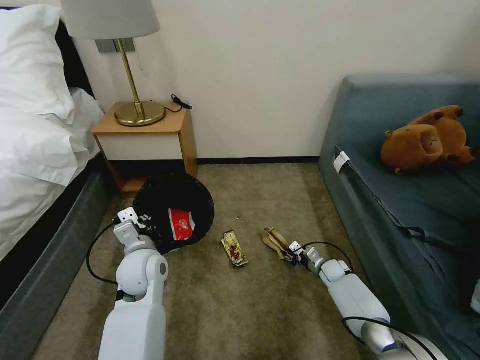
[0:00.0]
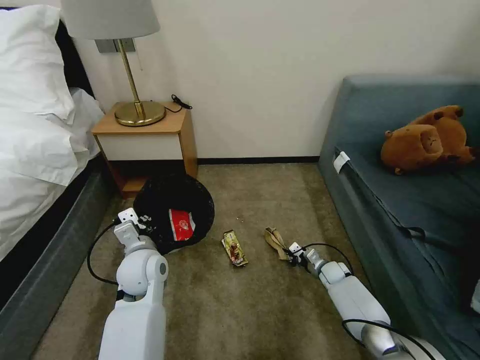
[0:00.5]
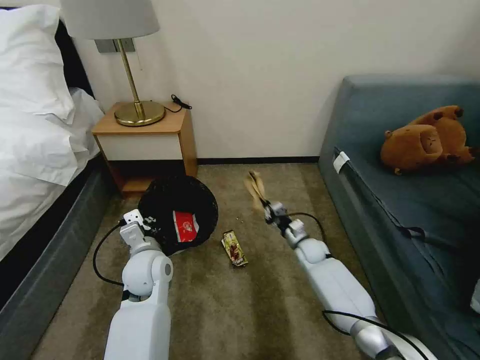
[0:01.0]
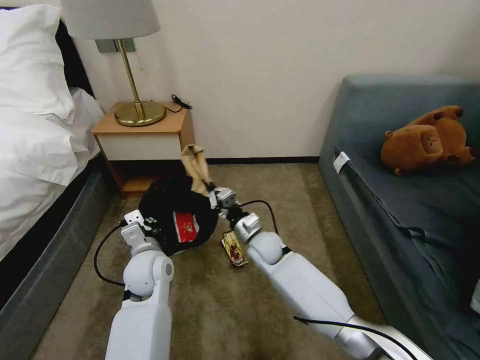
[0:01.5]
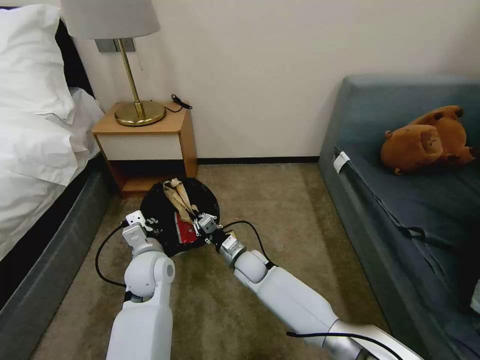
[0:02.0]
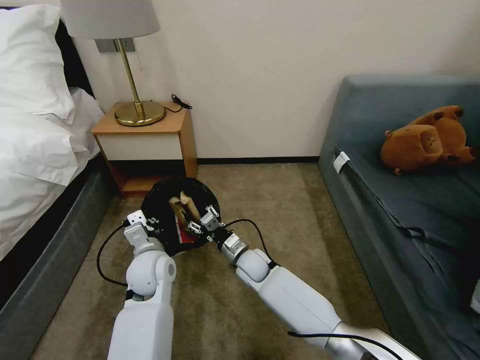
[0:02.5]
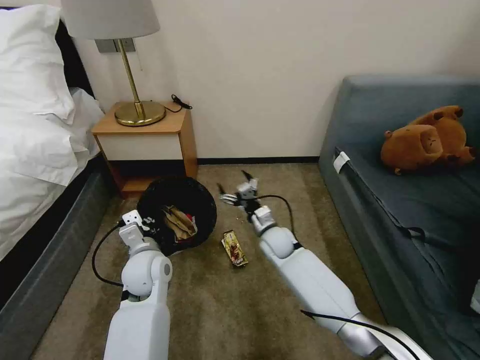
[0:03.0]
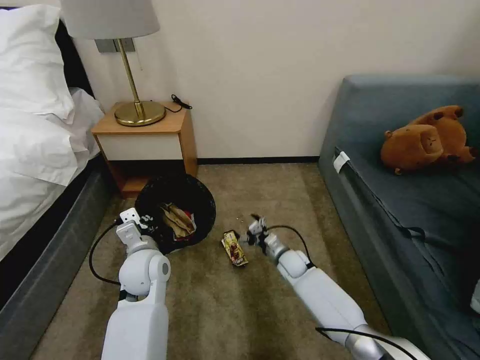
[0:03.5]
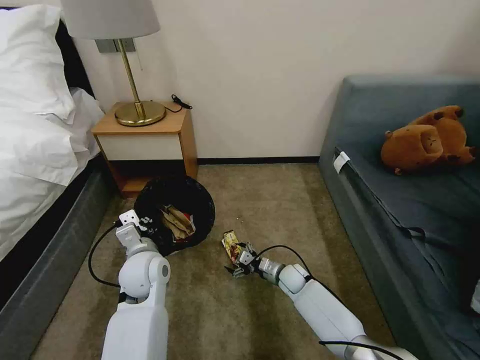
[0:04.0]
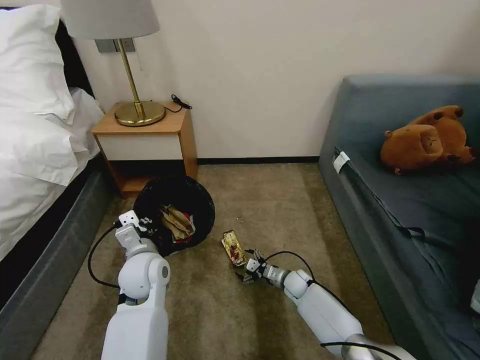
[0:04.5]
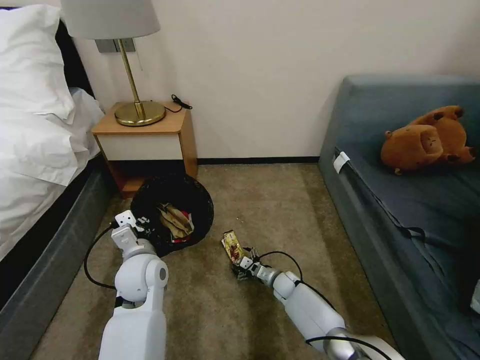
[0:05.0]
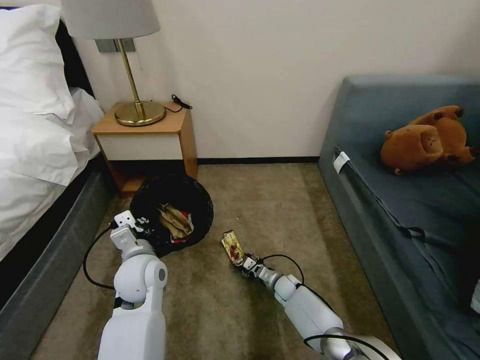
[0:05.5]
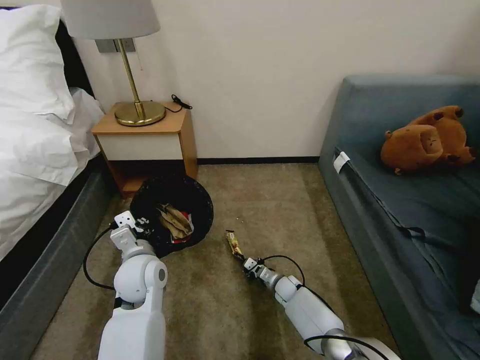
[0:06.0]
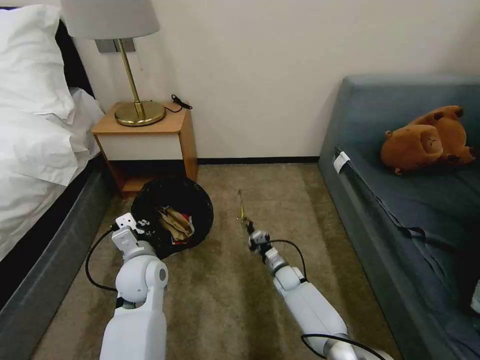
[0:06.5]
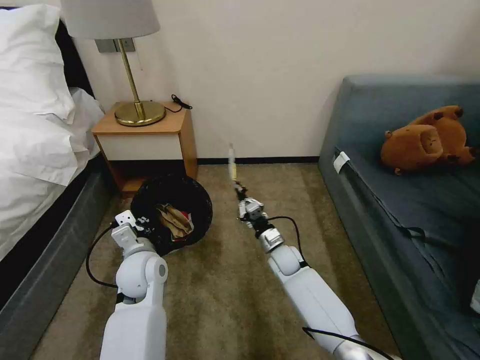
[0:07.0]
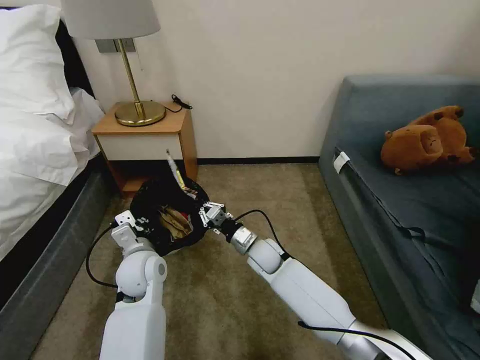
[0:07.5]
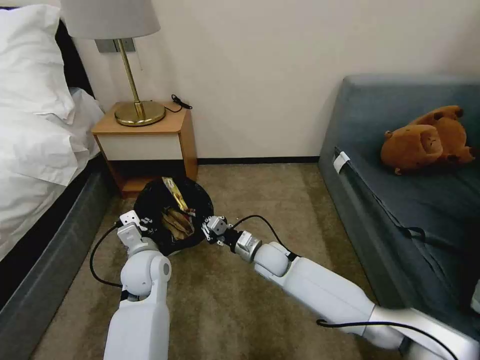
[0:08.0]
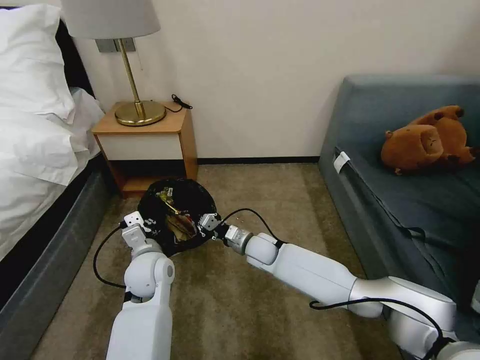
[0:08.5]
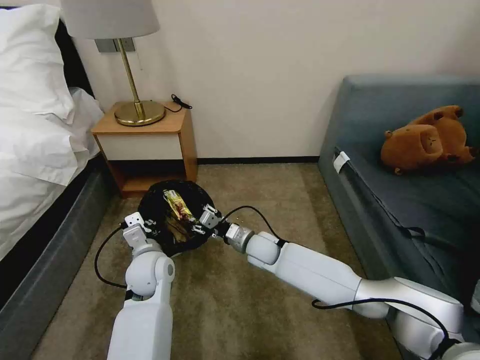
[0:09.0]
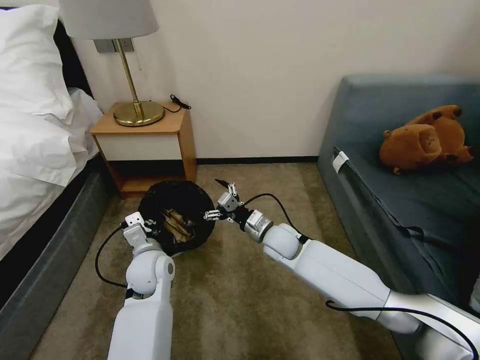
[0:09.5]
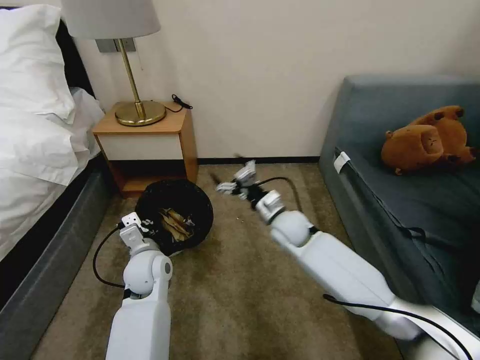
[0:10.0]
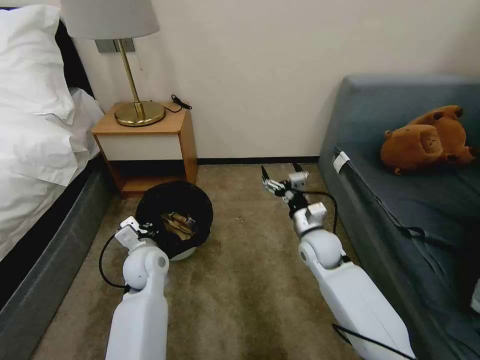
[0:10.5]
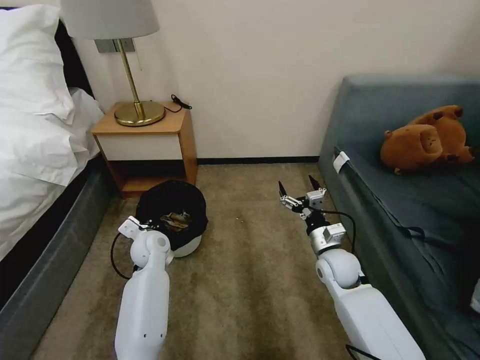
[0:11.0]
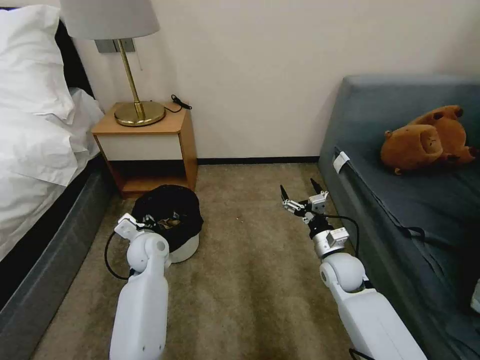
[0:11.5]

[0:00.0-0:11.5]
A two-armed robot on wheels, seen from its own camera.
Task of the whole recording: Pick up the trash bin, then pick up the garbage on the floor and place it into the trash bin.
0:00.0 to 0:02.0: The right gripper shifts approximately 30 cm to the left.
0:02.0 to 0:04.0: The right gripper travels to the right and downward by about 15 cm, and opens its fingers.
0:04.0 to 0:06.0: The right gripper shifts some 5 cm downward, and closes.
0:06.0 to 0:07.5: The right gripper is displaced upward and to the left by approximately 20 cm.
0:07.5 to 0:09.5: The right gripper is displaced upward by some 5 cm, and opens up.
0:09.5 to 0:11.5: The right gripper moves to the right and backward, about 15 cm. The left gripper travels forward by some 5 cm, and opens its fingers.

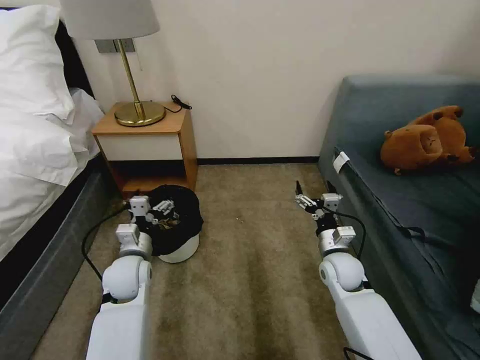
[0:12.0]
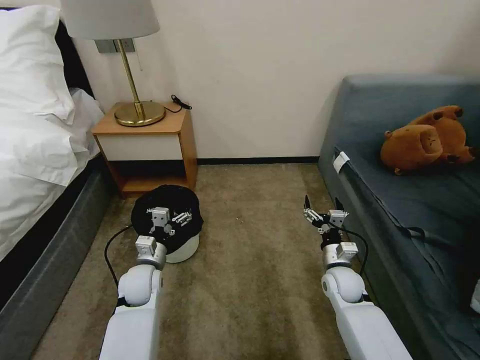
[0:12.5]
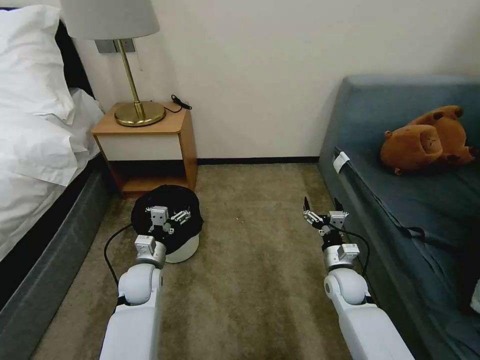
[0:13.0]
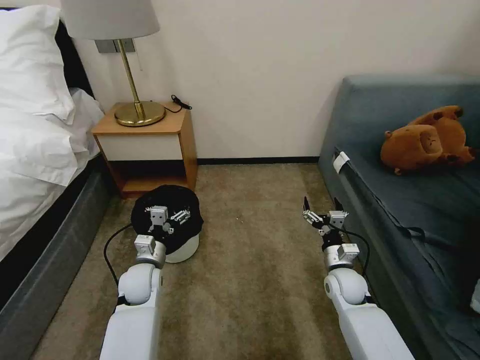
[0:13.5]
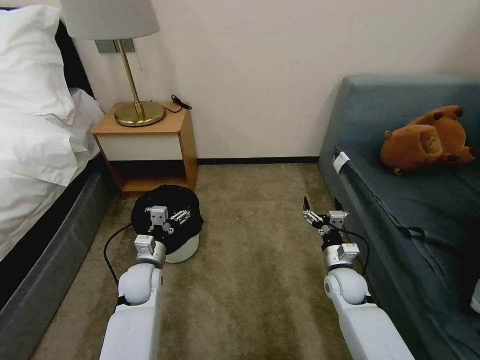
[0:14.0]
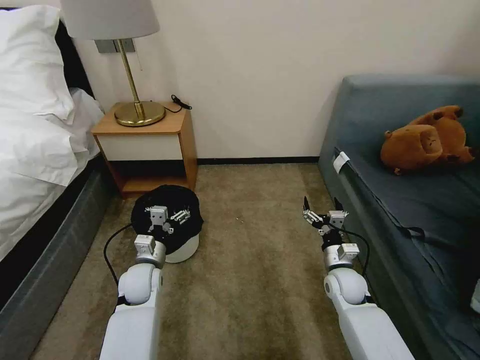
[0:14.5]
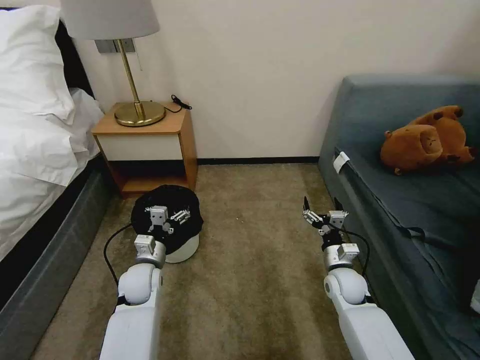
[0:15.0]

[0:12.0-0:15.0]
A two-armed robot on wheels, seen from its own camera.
Task of the whole recording: Pick up the trash bin, then pick up the garbage on the floor and place it into the trash bin.
0:12.0 to 0:13.5: The grippers both shift downward by about 5 cm.
0:13.5 to 0:15.0: The two grippers keep their place.

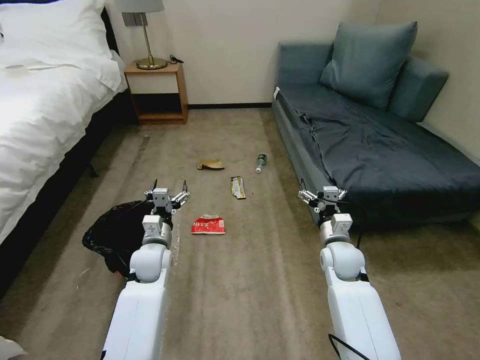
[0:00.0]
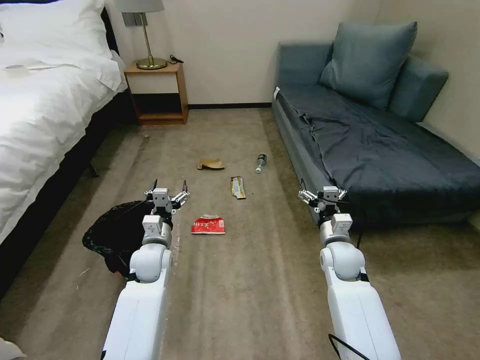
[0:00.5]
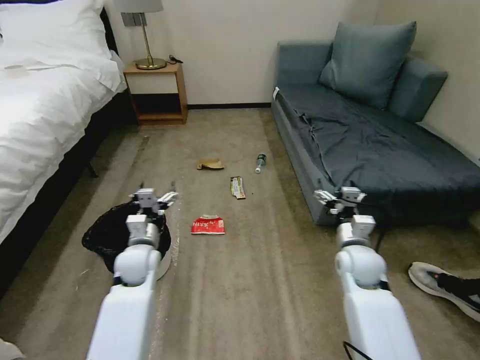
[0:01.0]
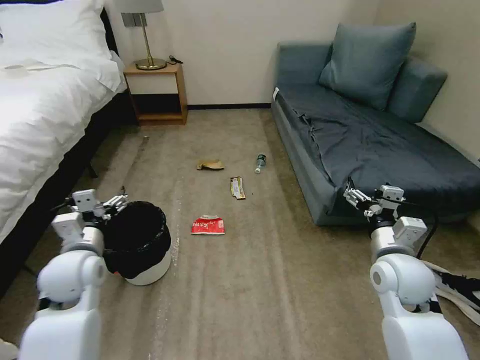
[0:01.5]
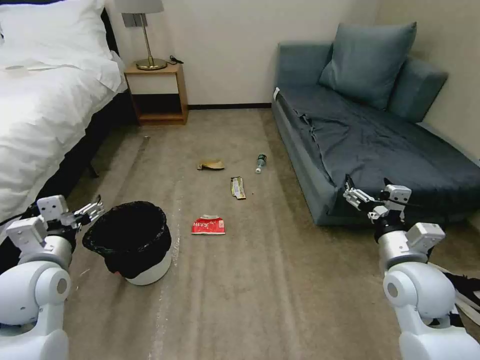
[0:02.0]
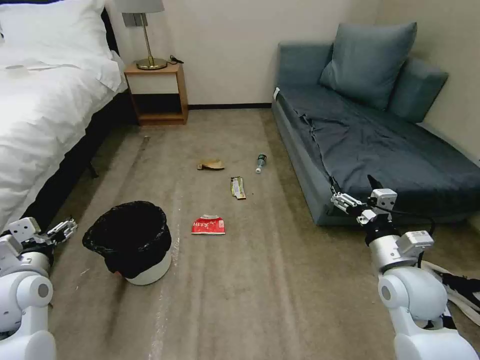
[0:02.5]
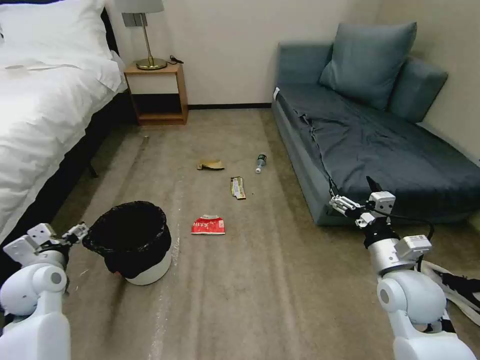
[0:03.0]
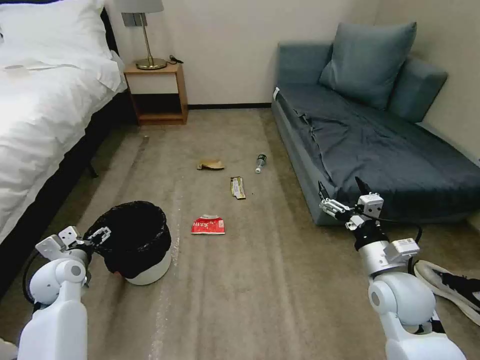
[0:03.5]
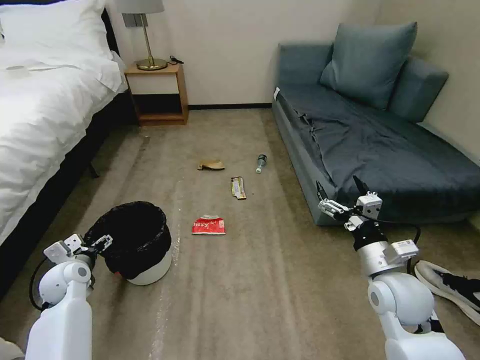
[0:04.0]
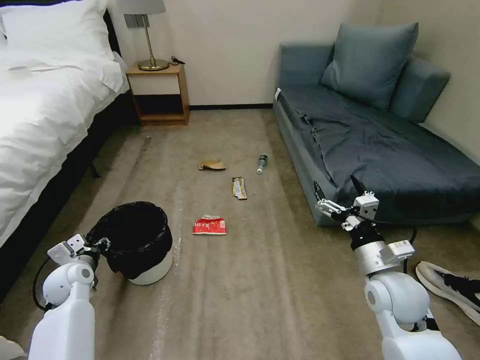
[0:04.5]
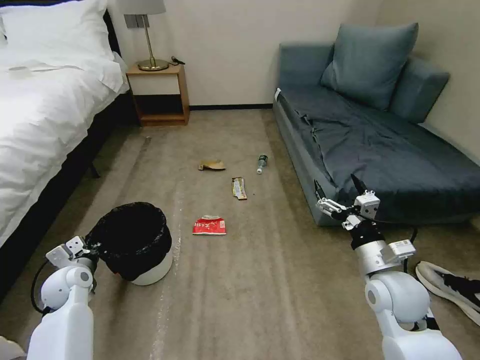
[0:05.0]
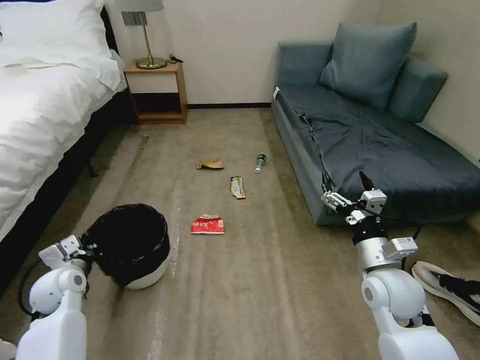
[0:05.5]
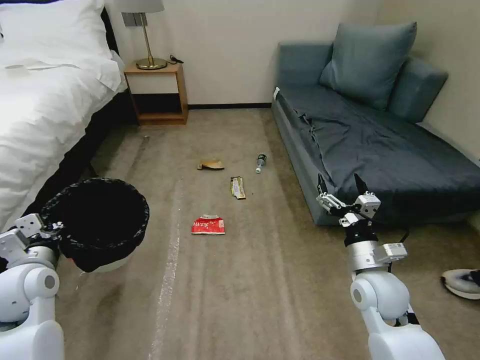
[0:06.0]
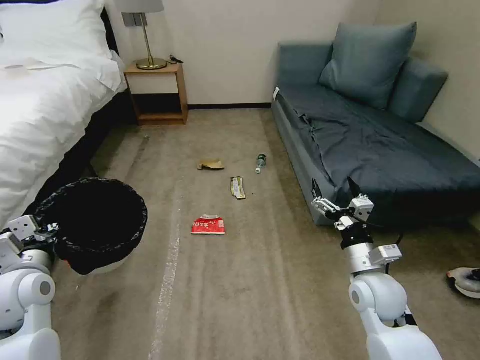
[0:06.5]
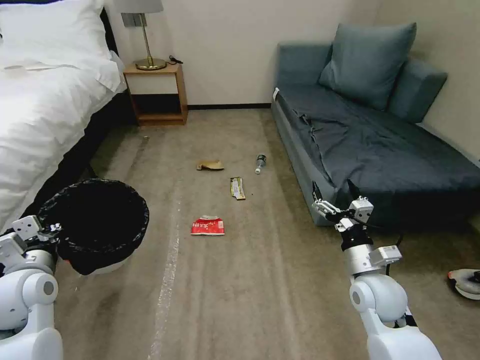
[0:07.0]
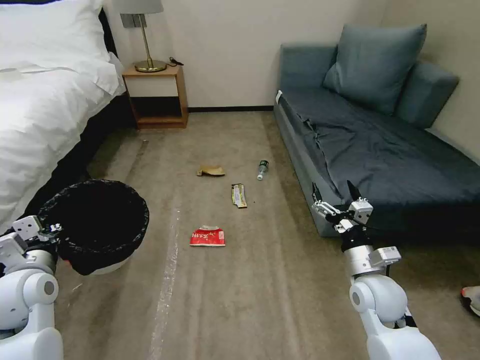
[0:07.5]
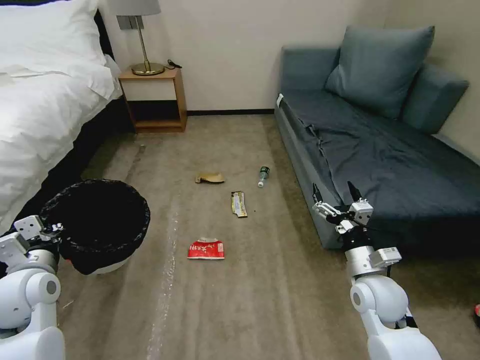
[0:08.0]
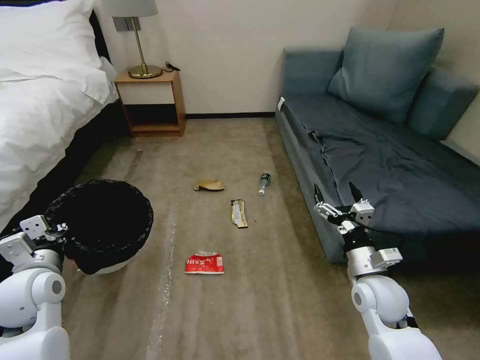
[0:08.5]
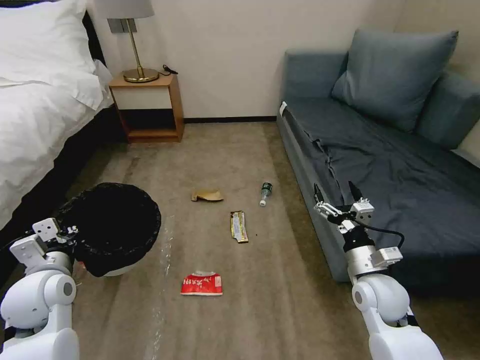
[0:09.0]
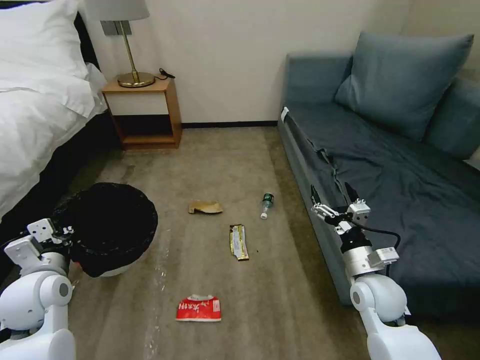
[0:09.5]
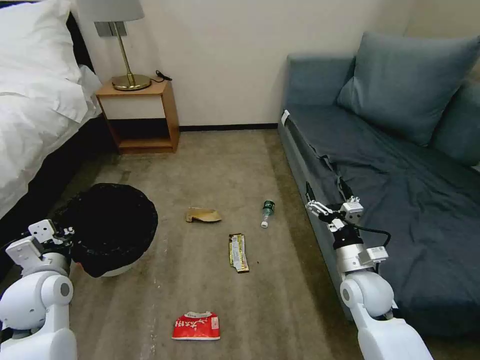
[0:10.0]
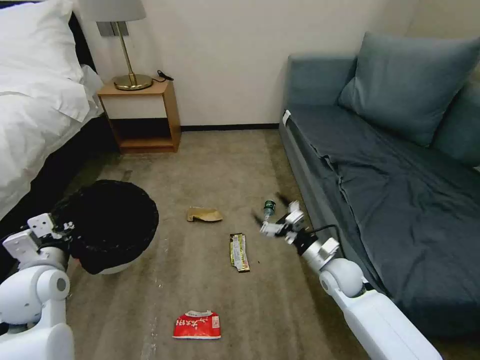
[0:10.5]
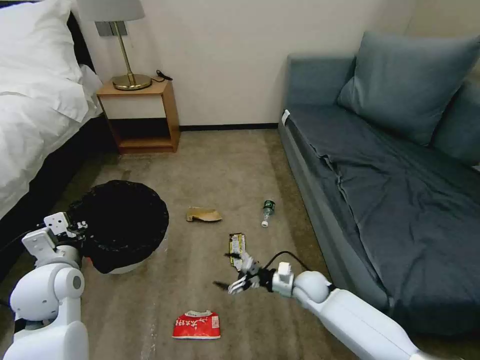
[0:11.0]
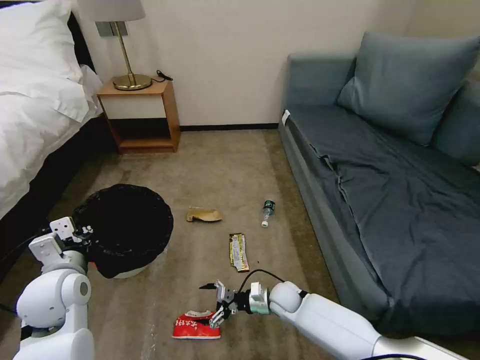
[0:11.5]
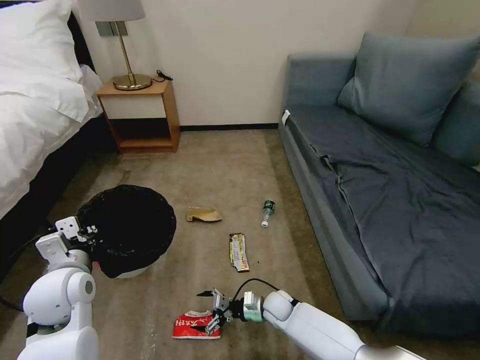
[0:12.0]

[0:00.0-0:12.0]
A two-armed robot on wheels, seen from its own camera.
Task of the whole recording: Pick up the trash bin, then pick up the garbage on the floor and place it into the trash bin.
0:02.0 to 0:04.0: The left gripper moves downward, forward and to the left, some 20 cm.
0:04.0 to 0:06.0: The left gripper shifts about 15 cm upward and backward, and closes.
0:10.0 to 0:12.0: The right gripper moves downward and to the left, some 25 cm.
